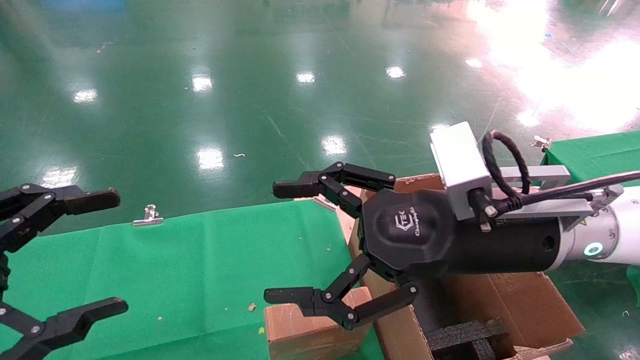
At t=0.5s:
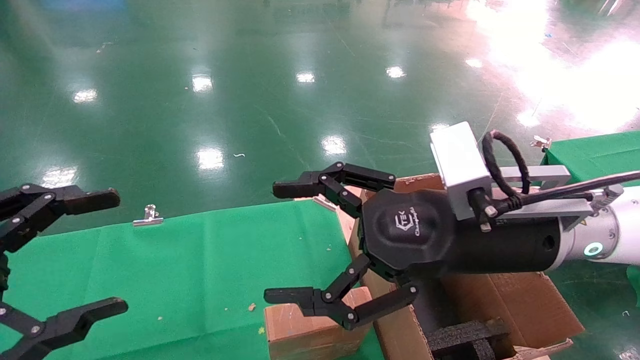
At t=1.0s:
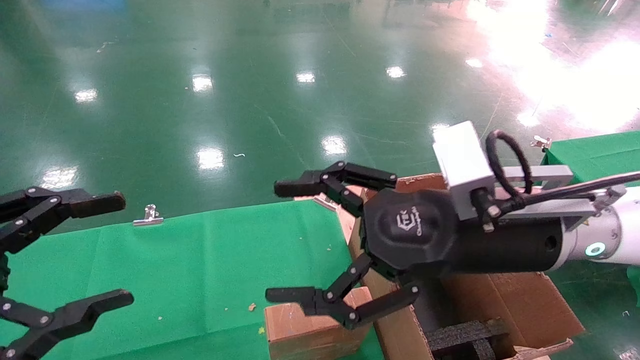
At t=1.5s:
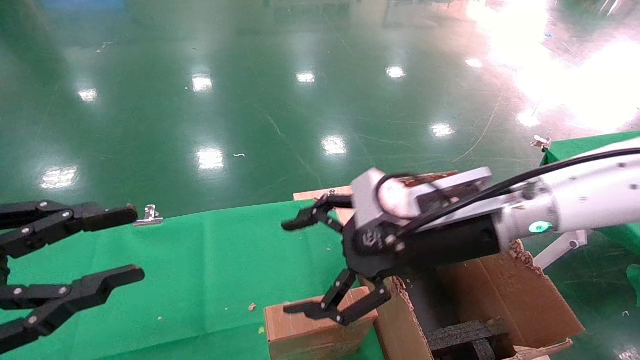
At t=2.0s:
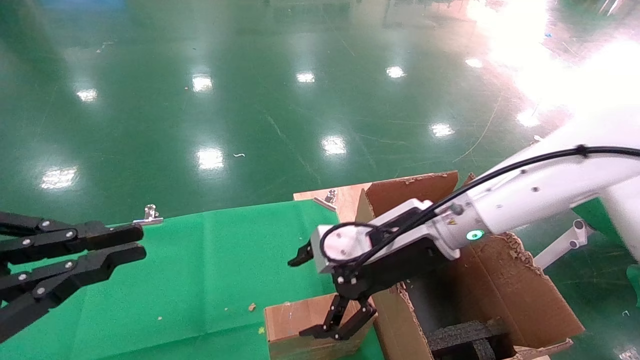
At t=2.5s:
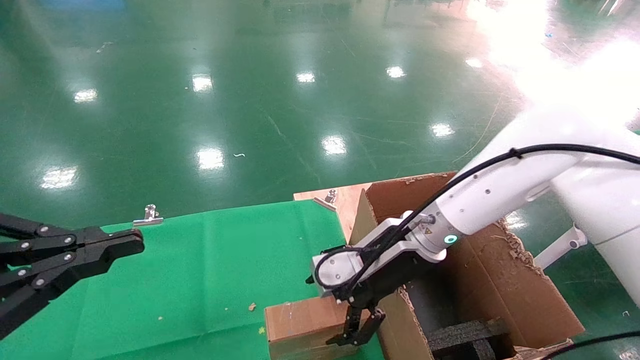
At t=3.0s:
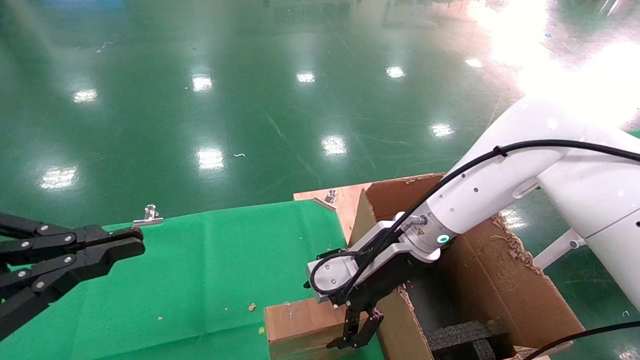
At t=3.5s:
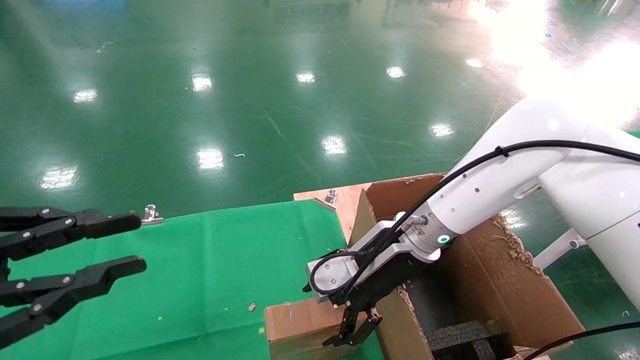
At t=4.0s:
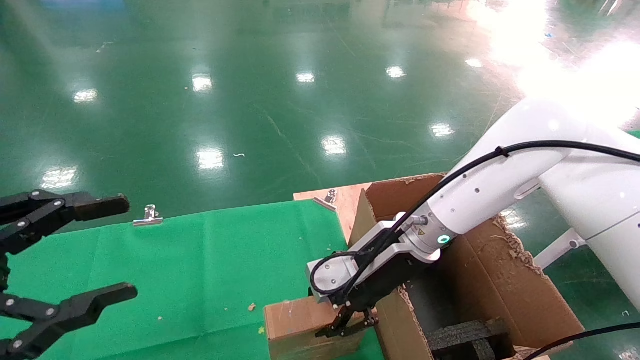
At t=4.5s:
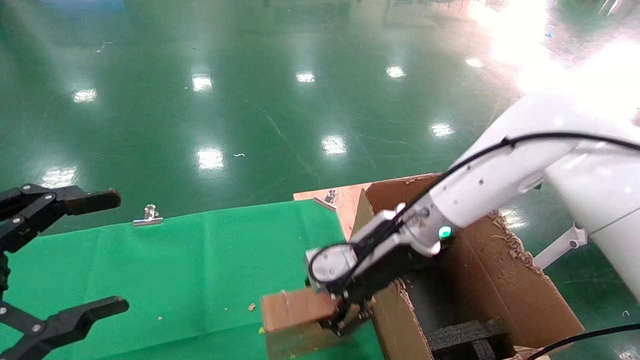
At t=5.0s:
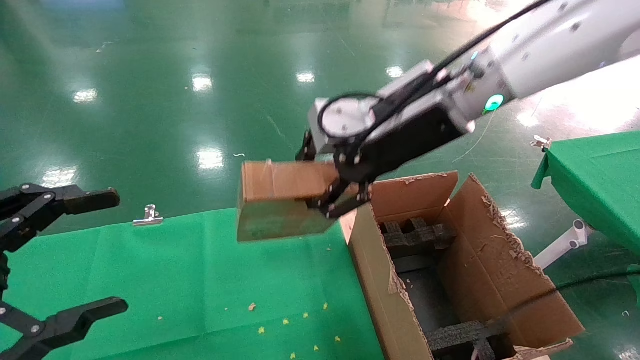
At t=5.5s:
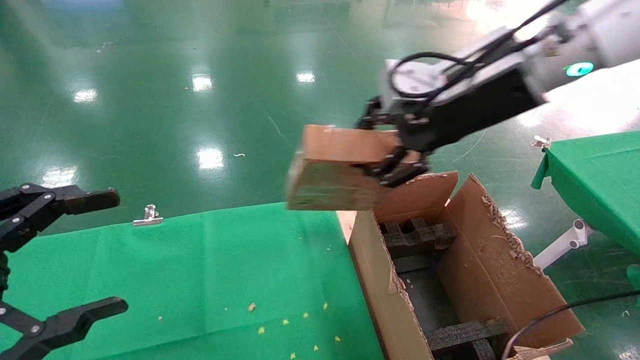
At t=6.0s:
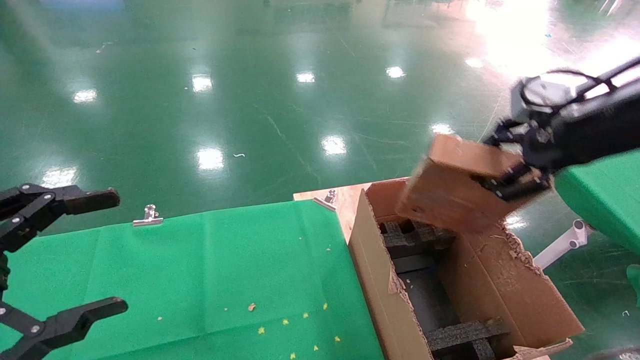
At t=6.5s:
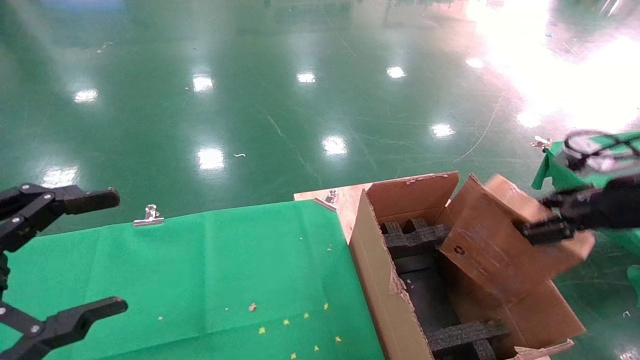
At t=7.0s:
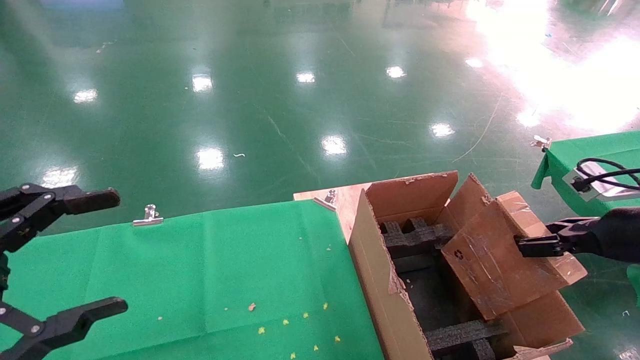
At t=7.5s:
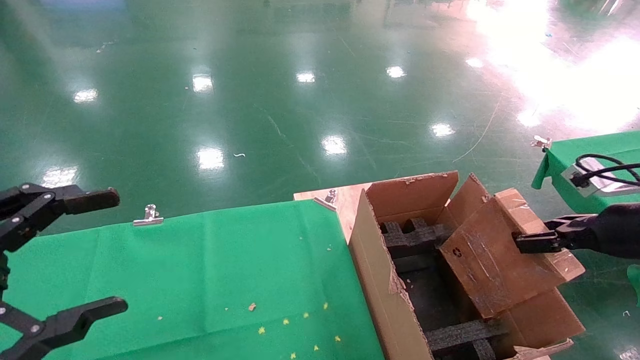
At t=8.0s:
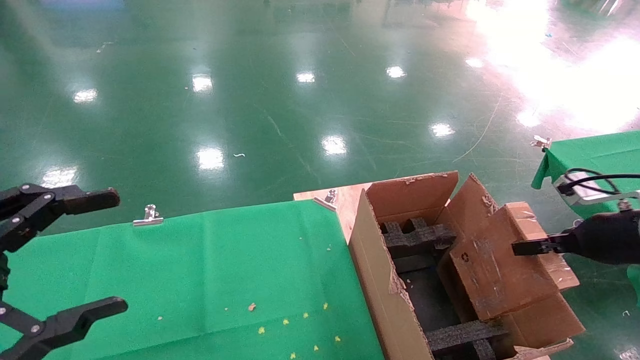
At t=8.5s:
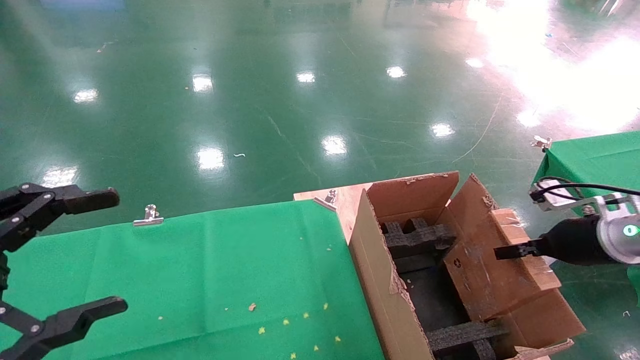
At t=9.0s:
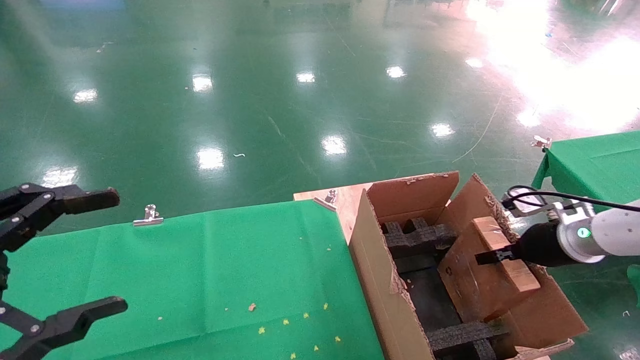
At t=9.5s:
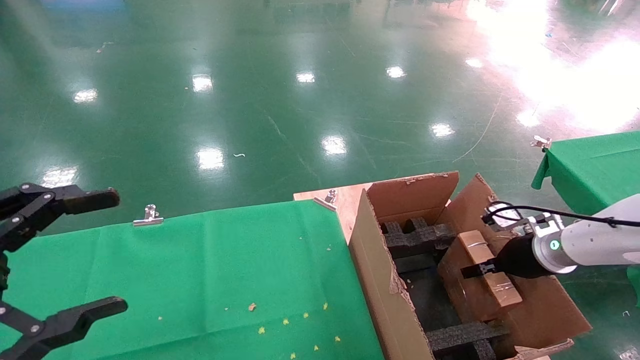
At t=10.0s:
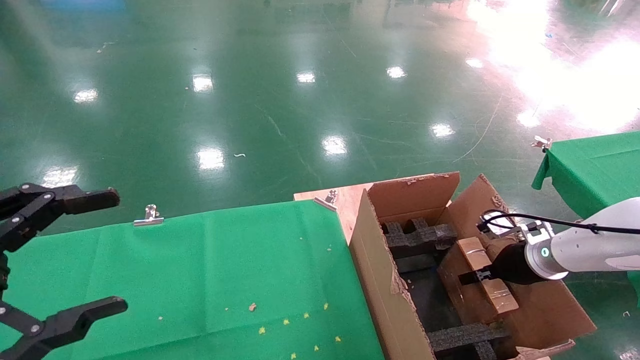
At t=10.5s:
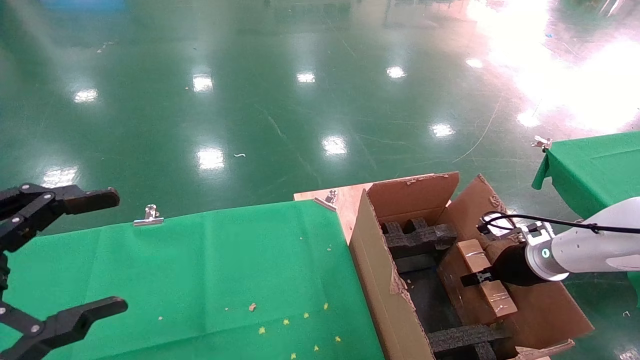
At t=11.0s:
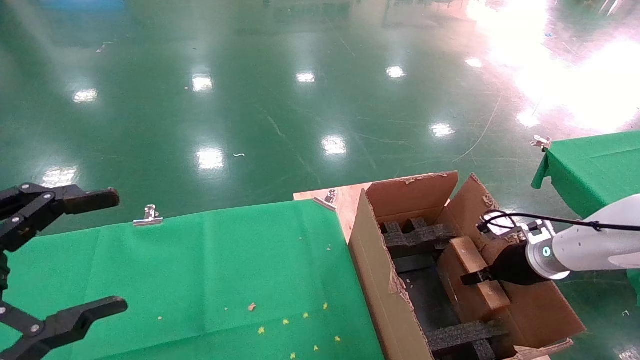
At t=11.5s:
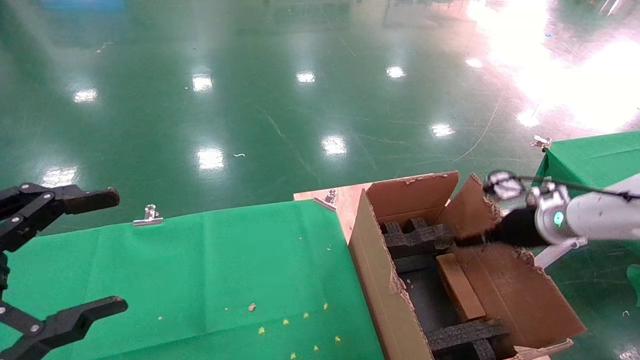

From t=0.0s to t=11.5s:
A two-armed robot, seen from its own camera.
Task of the whole recording: using a robotic arm to pick up a cardboard box and palace it the carton.
Step, from t=1.5s to t=4.0s: Pick up the mouse and the power cord paper box.
From t=0.0s to t=2.0s: The left gripper closes its fingers, while the right gripper moves forward and downward, approximately 10 cm.
From t=2.0s to t=4.0s: The right gripper closes.
From t=4.0s to t=6.0s: The left gripper opens. Meanwhile the right gripper travels to the right and upward by approximately 25 cm, and closes up.
From t=6.0s to t=7.5s: The right gripper travels downward and to the right by approximately 20 cm.
From t=7.5s to t=9.5s: The right gripper travels forward and downward by approximately 15 cm.
From t=9.5s to t=11.5s: The right gripper shifts about 5 cm upward, and opens.

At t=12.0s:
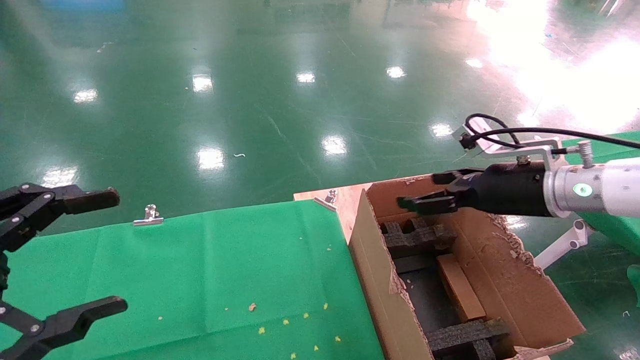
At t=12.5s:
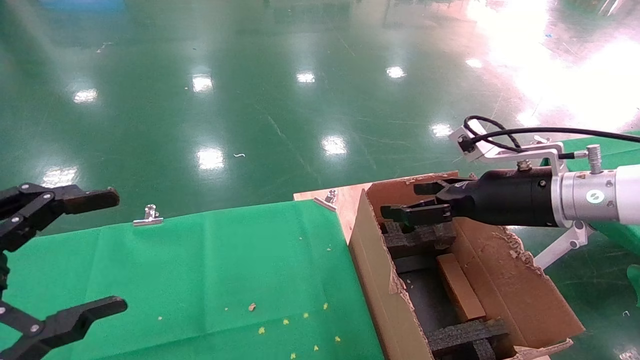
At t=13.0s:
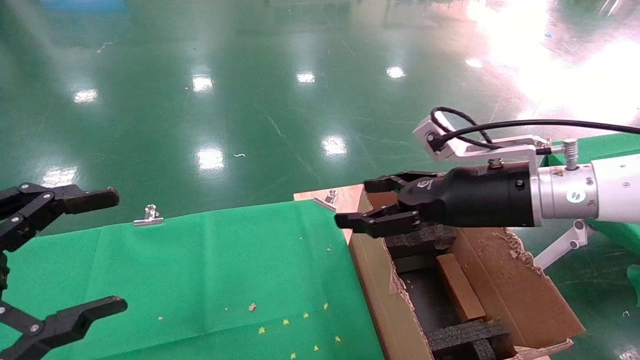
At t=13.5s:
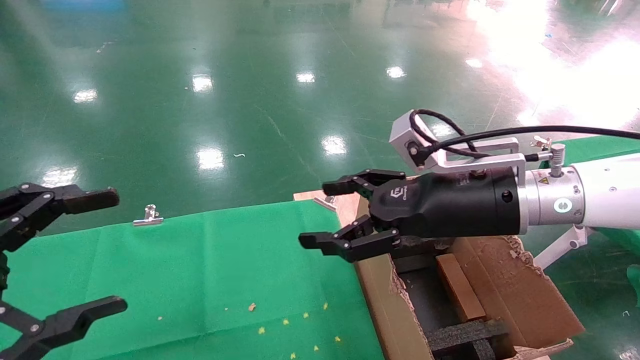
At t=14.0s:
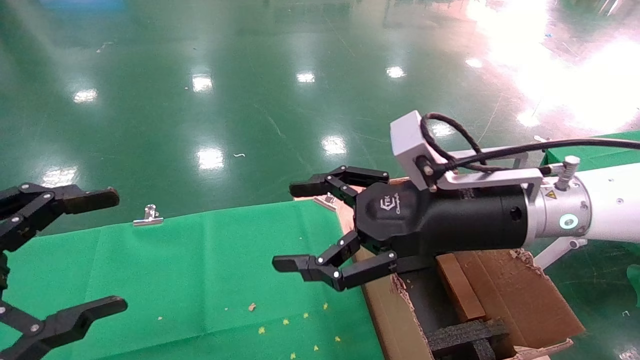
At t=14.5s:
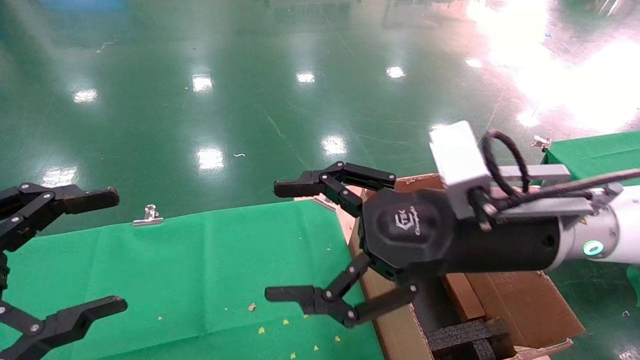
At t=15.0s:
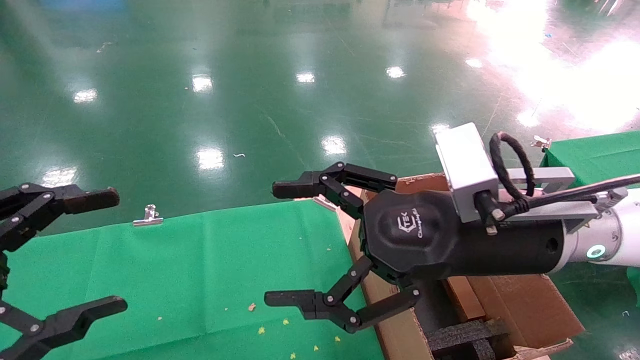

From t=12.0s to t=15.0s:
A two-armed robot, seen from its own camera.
Task of the whole recording: using a robotic arm to pick up a cardboard box and palace it the carton.
From t=12.0s to t=13.5s: The right gripper moves to the left, about 10 cm.
From t=13.5s to t=15.0s: The right gripper travels backward by about 5 cm.
